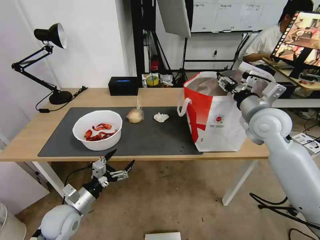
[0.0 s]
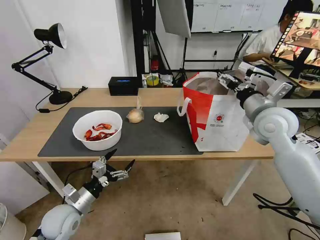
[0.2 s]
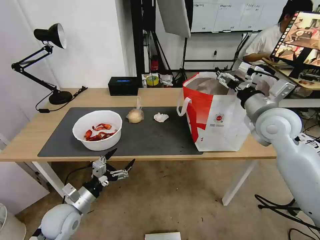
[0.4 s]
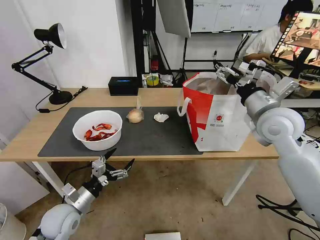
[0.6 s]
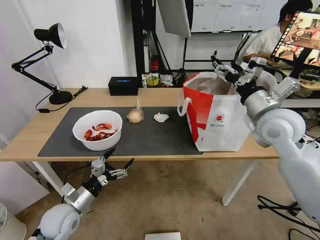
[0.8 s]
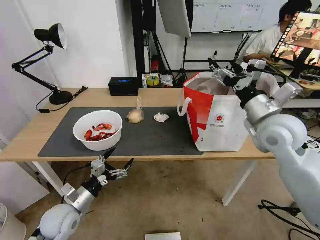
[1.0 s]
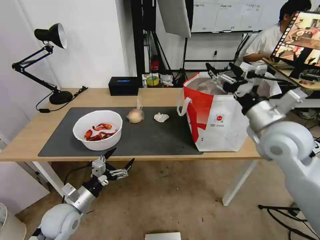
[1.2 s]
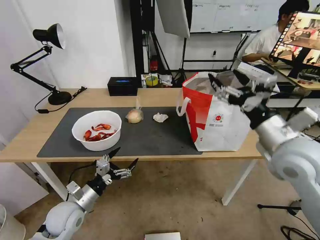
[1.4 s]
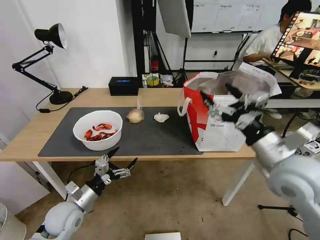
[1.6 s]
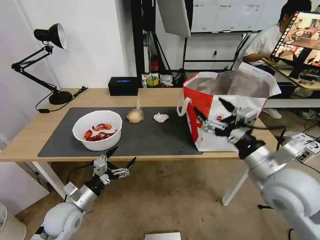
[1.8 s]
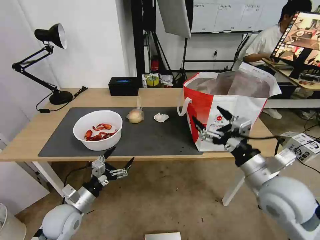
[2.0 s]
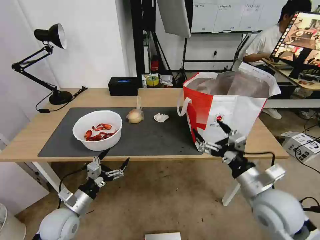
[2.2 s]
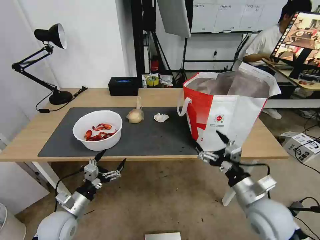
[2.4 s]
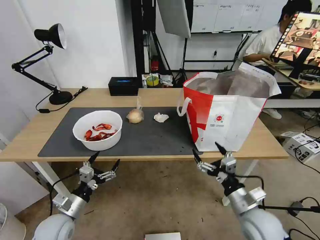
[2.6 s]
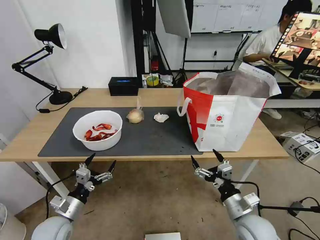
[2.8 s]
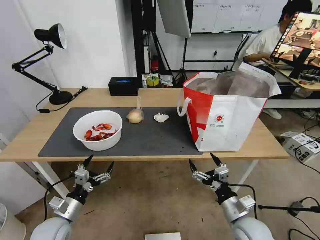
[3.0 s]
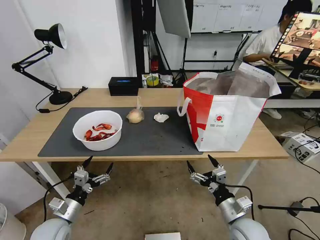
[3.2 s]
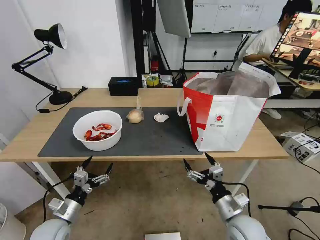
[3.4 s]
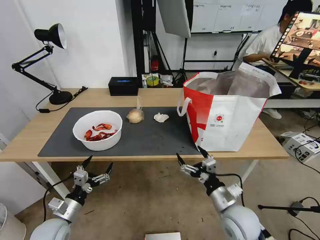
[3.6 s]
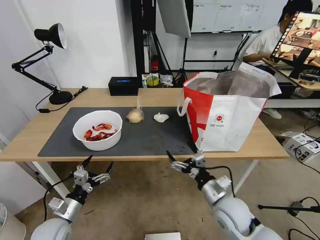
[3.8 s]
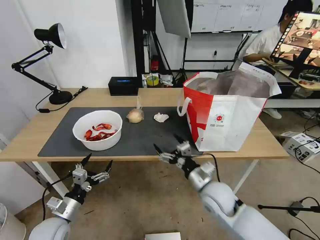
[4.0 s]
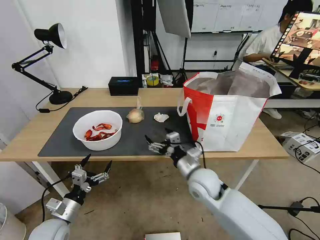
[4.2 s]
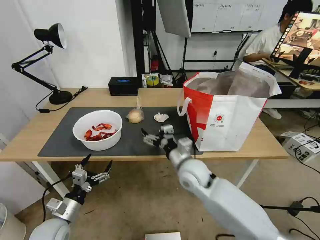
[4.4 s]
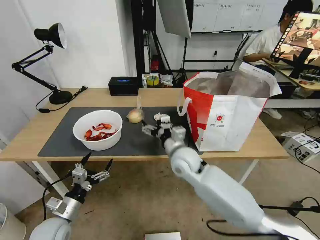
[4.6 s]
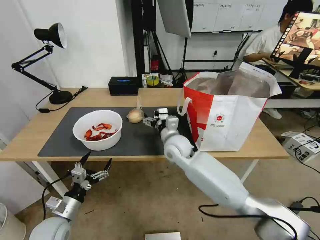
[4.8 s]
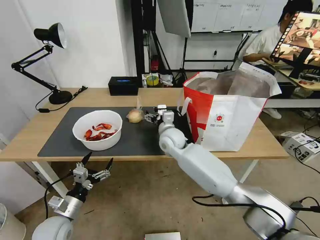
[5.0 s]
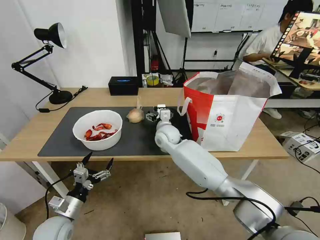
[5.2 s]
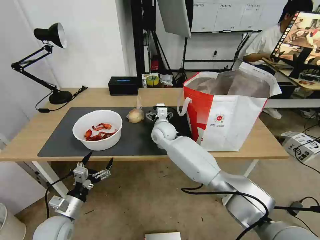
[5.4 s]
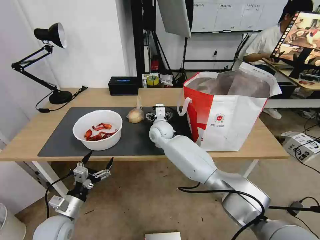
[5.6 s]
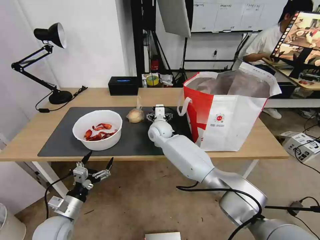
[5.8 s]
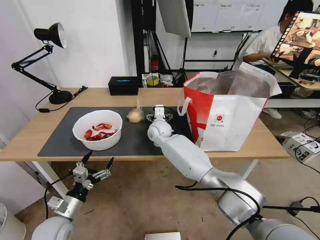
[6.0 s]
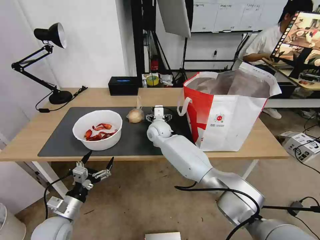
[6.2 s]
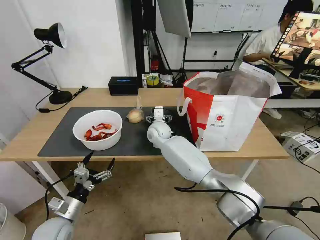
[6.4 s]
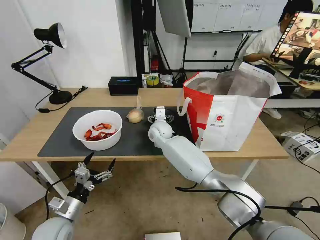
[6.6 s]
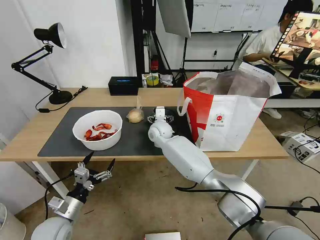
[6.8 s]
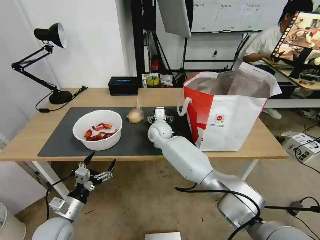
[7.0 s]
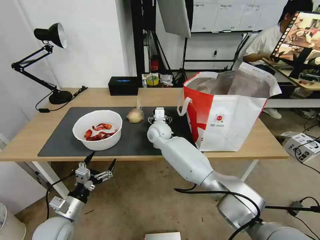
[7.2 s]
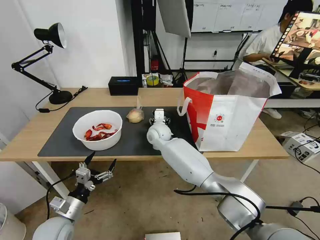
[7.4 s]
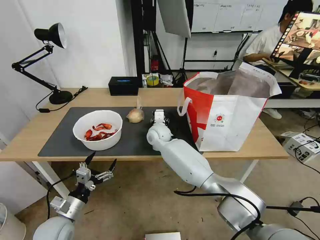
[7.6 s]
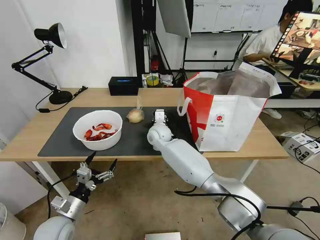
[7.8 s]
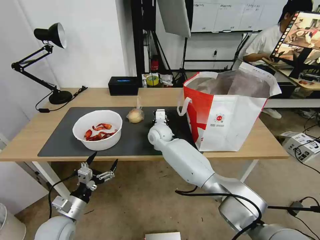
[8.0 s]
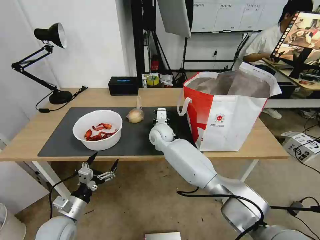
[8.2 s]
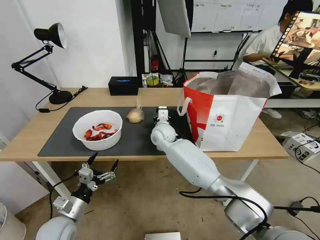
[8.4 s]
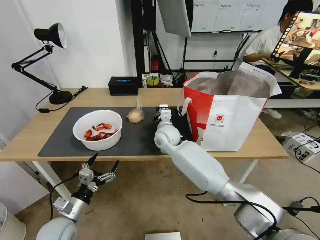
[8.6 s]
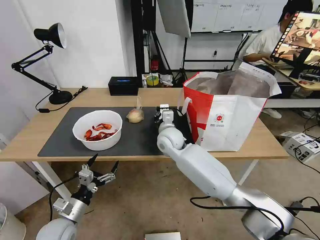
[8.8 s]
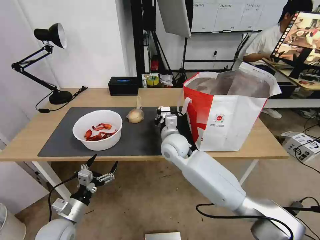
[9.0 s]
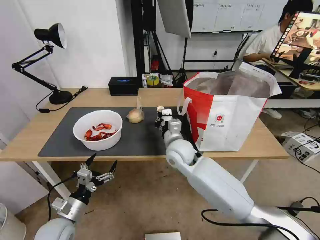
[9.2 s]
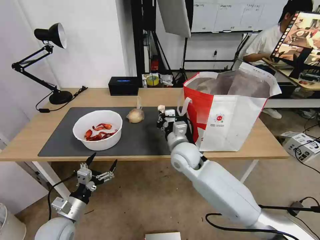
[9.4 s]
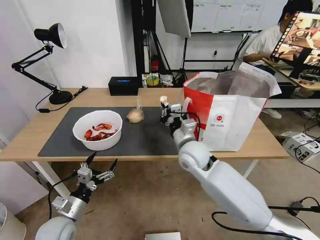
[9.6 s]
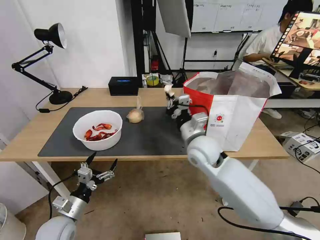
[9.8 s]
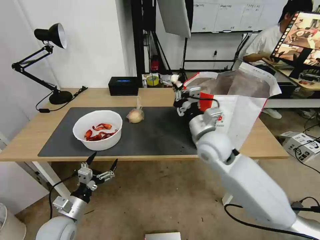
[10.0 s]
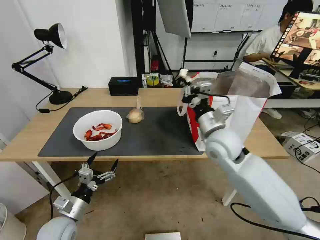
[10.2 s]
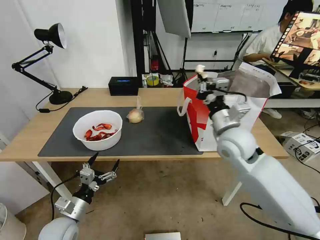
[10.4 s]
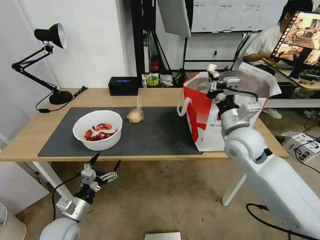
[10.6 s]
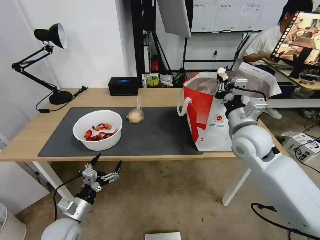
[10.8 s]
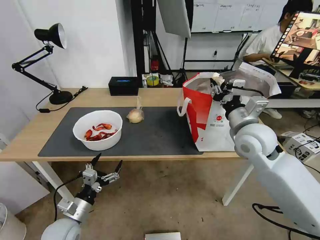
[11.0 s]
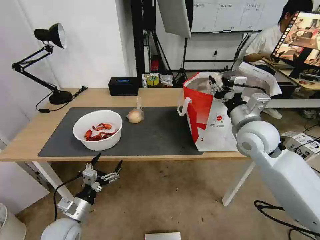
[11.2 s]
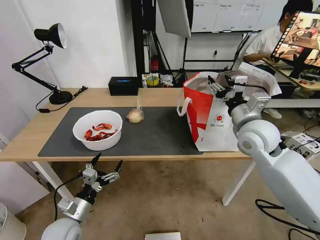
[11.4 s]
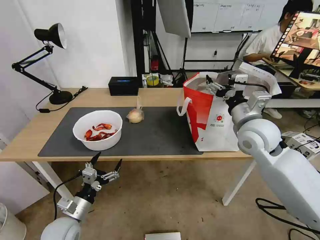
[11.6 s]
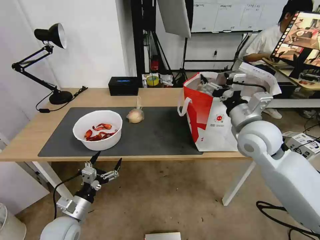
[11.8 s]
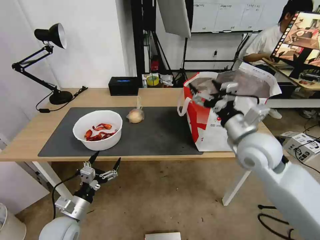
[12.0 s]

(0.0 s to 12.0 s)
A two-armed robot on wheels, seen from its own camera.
Task of the whole recording: Pick up the trash from the table and place it into the takeout bag.
0.0 s - 1.6 s: The right gripper is displaced backward by about 15 cm.
1.6 s - 3.0 s: The left gripper moves about 5 cm. The right gripper is displaced downward by some 25 cm.
3.0 s - 4.4 s: The right gripper shifts approximately 20 cm to the left, forward and upward.
4.4 s - 6.0 s: The right gripper travels forward and to the left by roughly 25 cm.
6.0 s - 7.6 s: The right gripper closes.
7.6 s - 9.0 s: The right gripper goes some 10 cm backward and to the right, and closes.
9.0 s - 10.4 s: The right gripper moves to the right and upward, approximately 20 cm.
10.4 s - 12.0 s: The right gripper ends up some 5 cm from where it was, and opens its fingers.

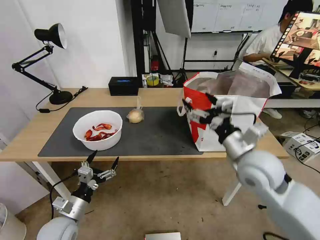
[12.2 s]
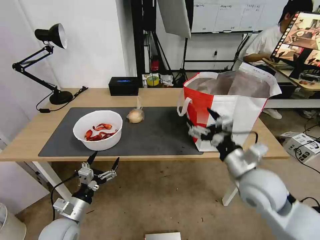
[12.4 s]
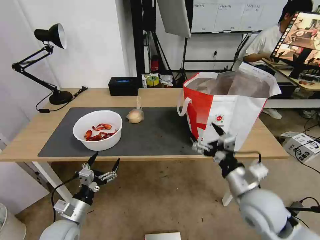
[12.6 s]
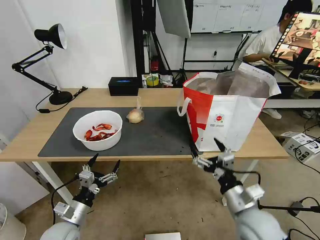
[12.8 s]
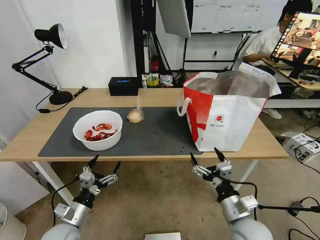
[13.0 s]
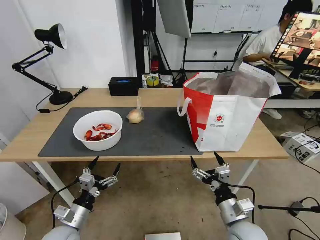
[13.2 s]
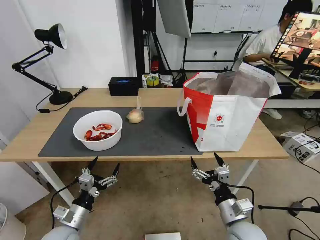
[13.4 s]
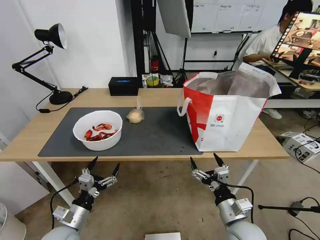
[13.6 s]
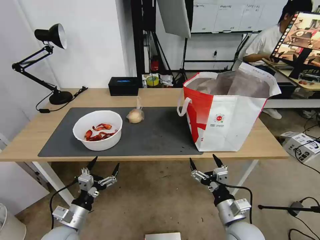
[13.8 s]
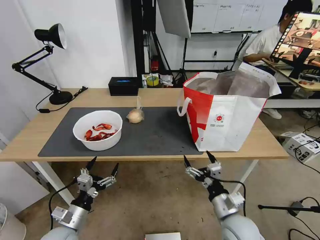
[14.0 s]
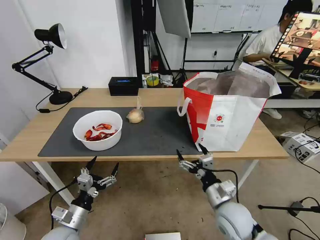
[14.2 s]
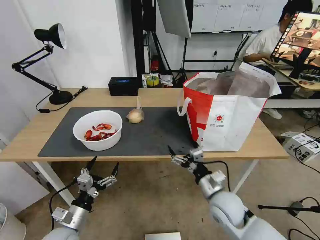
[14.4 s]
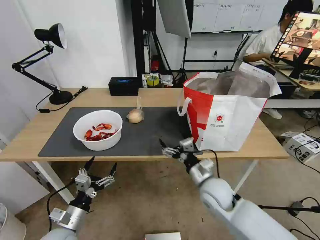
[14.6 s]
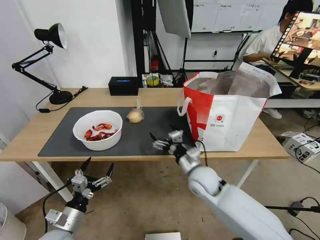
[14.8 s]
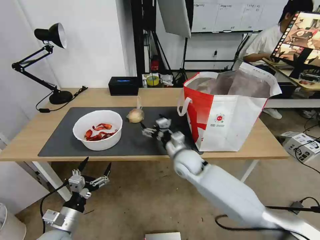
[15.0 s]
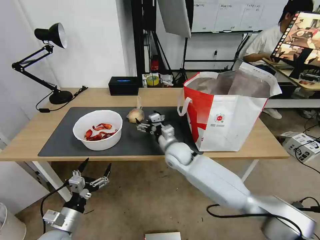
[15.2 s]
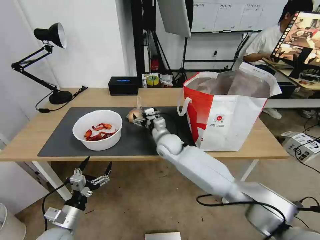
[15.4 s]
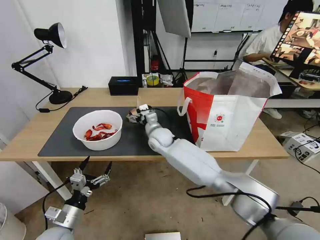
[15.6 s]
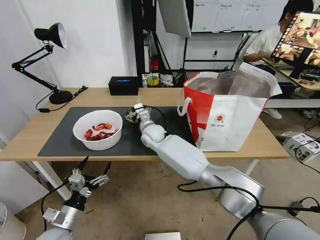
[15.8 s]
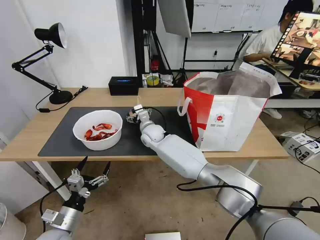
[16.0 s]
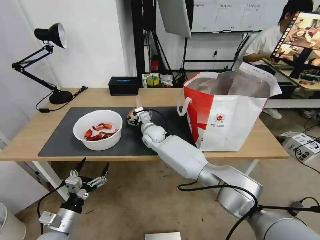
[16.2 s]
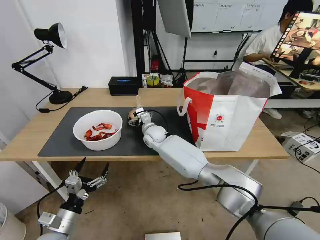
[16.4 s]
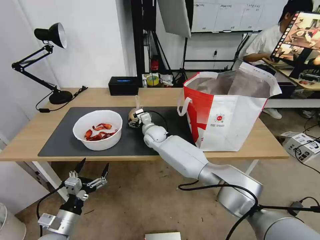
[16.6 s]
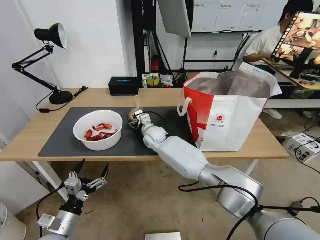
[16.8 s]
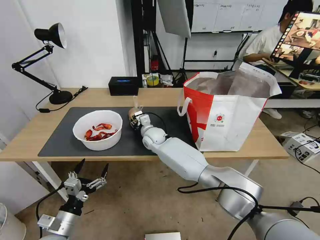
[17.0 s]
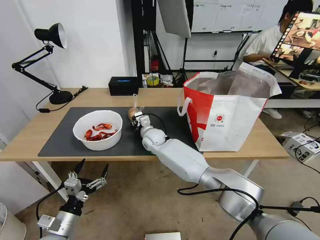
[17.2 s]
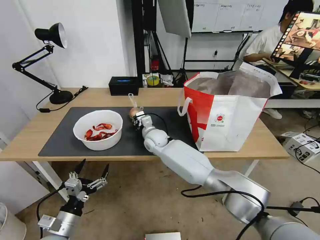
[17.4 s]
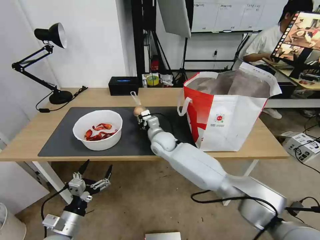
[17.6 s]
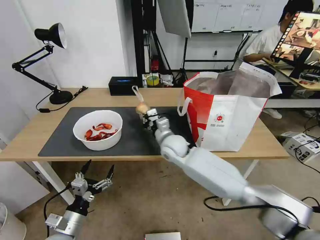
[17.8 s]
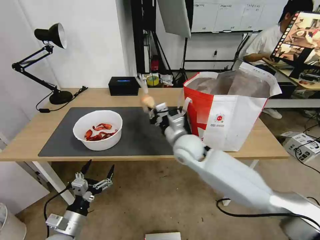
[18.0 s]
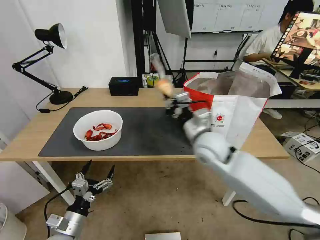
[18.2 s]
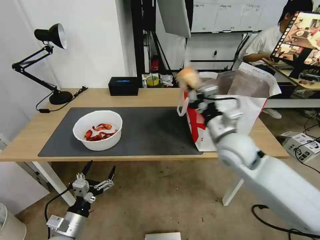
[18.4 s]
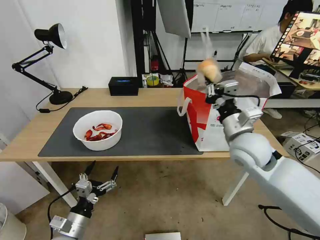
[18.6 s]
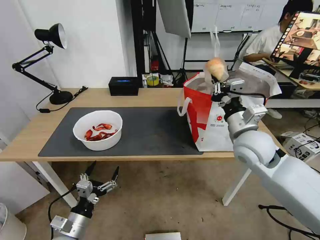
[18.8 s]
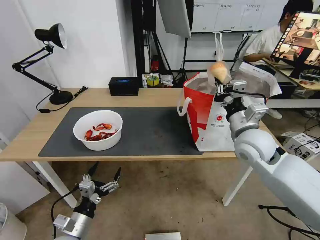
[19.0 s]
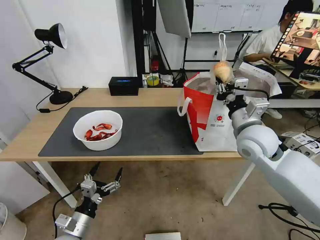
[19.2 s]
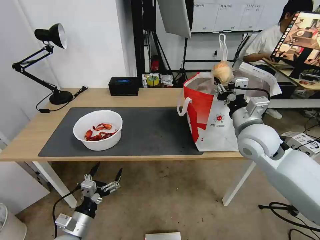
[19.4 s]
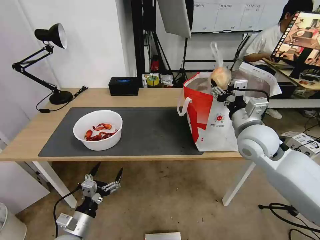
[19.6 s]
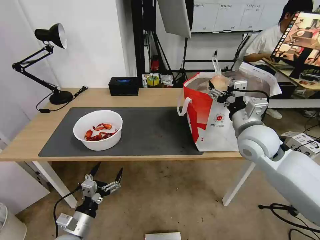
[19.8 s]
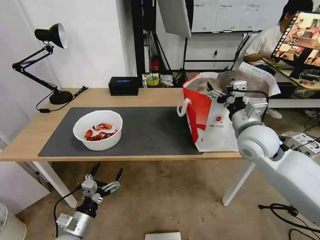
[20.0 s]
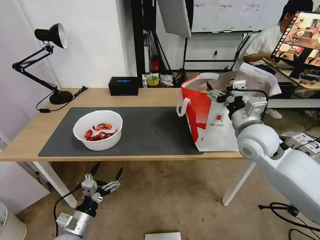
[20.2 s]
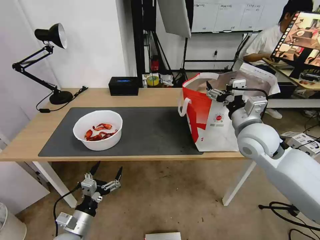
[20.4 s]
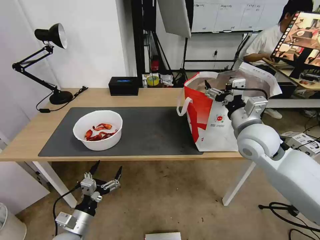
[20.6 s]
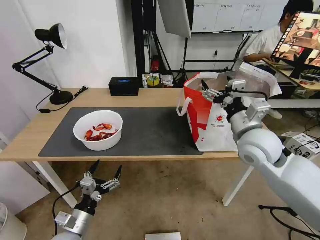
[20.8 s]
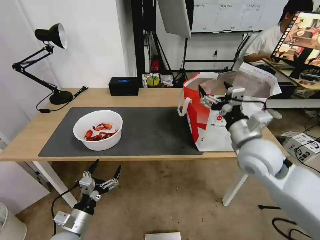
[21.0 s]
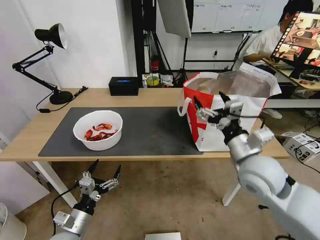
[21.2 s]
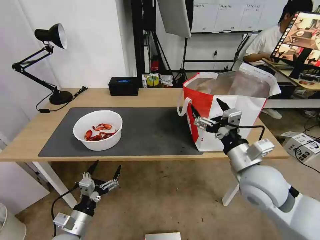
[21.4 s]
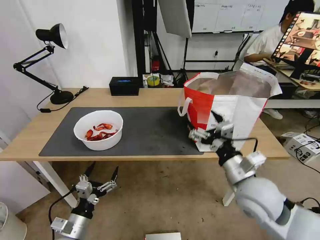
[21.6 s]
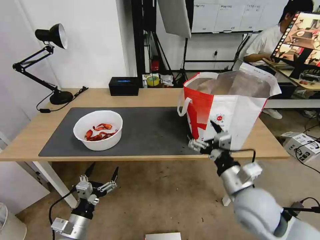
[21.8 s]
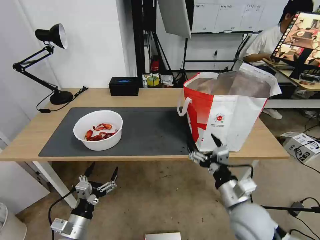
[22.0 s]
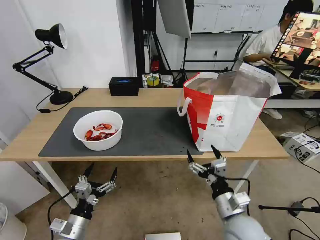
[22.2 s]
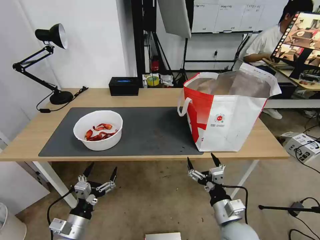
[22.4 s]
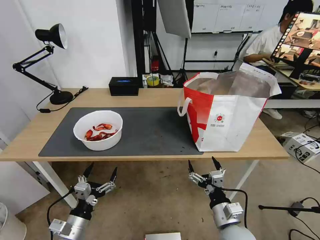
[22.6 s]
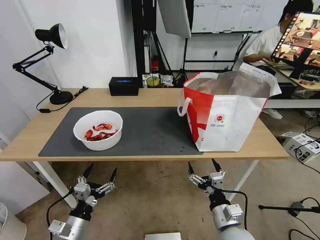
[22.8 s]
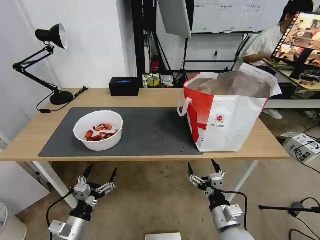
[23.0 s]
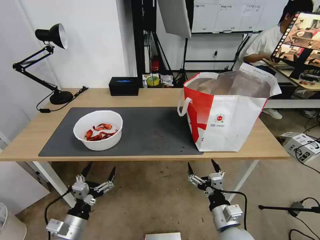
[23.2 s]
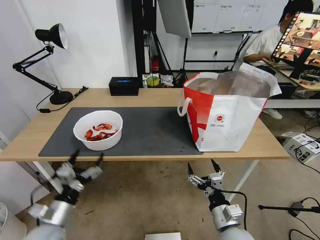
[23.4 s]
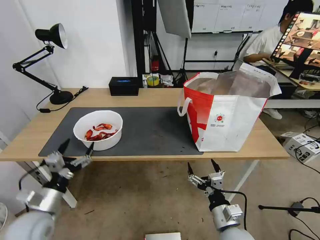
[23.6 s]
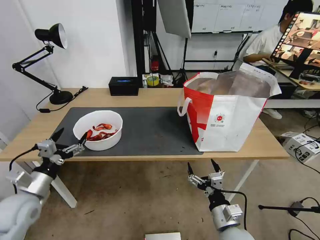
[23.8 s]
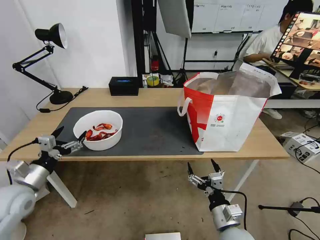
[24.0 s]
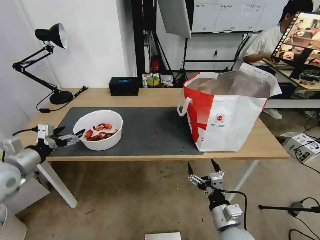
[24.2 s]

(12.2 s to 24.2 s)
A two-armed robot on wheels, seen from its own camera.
Task of the whole recording: Pick up the trash from the table and place it into the takeout bag.
12.2 s - 13.8 s: The right gripper travels downward and backward by some 20 cm.
13.8 s - 15.2 s: The right gripper heads forward and to the left, covering approximately 30 cm.
15.2 s - 16.6 s: The right gripper is displaced forward and to the left by about 15 cm.
16.6 s - 18.2 s: The right gripper goes roughly 25 cm to the right, backward and upward, and closes.
18.2 s - 19.8 s: The right gripper moves to the right, roughly 10 cm, and opens its fingers.
19.8 s - 21.2 s: The right gripper shifts about 10 cm backward.
21.2 s - 22.6 s: The right gripper shifts about 20 cm downward and backward.
22.6 s - 24.2 s: The left gripper travels upward, to the left and forward by approximately 25 cm.
